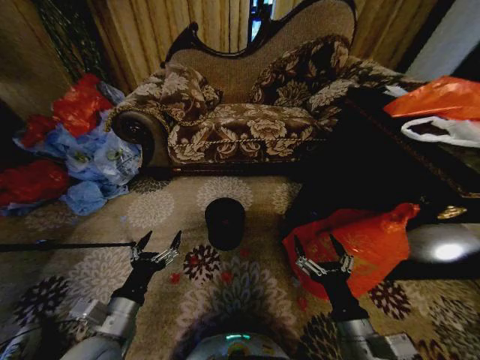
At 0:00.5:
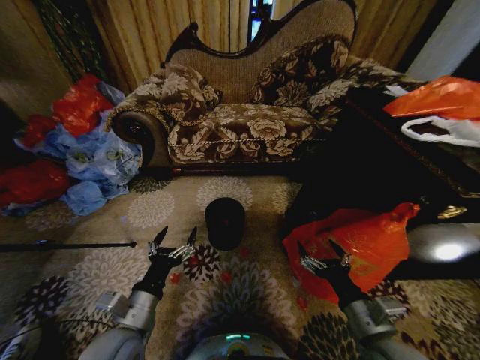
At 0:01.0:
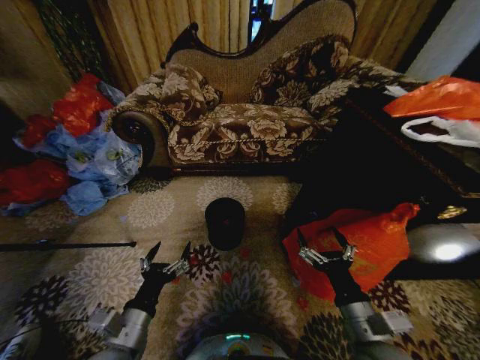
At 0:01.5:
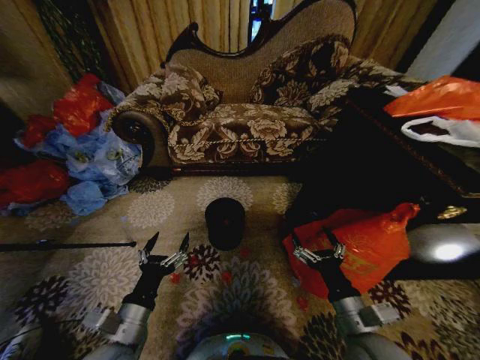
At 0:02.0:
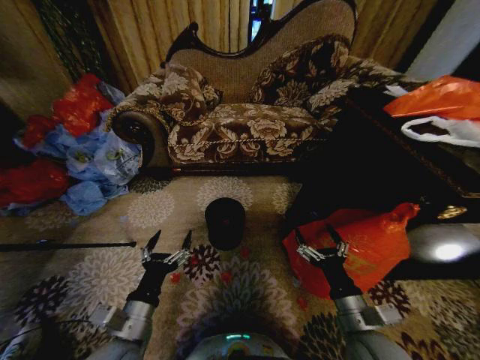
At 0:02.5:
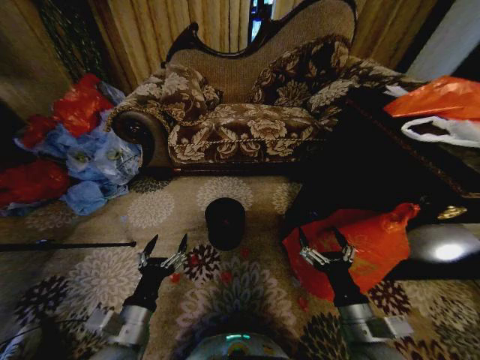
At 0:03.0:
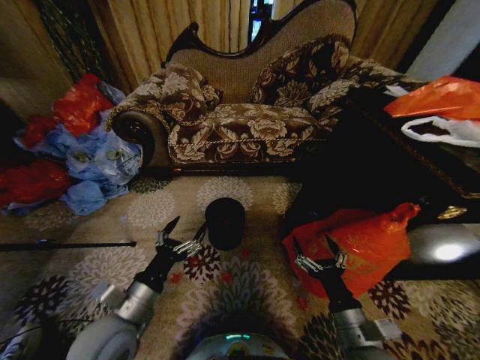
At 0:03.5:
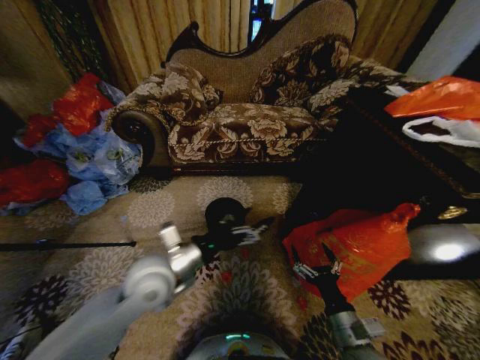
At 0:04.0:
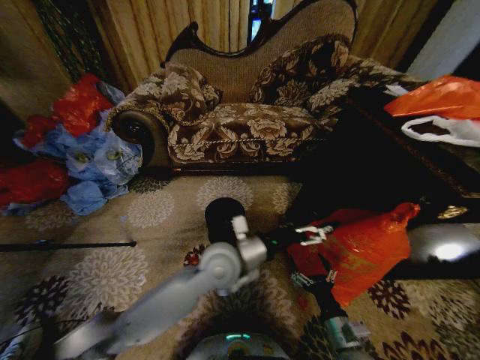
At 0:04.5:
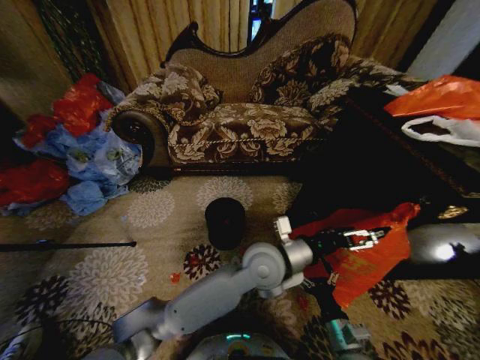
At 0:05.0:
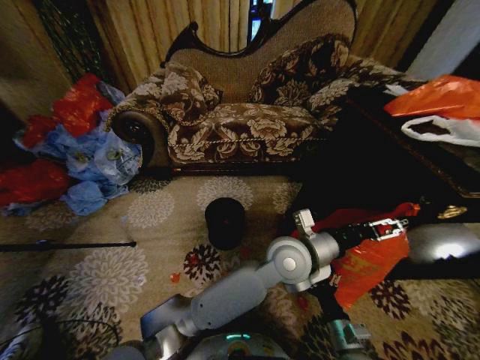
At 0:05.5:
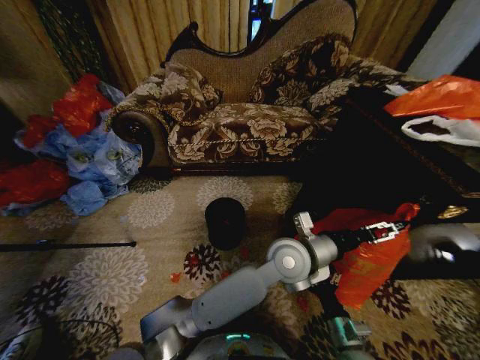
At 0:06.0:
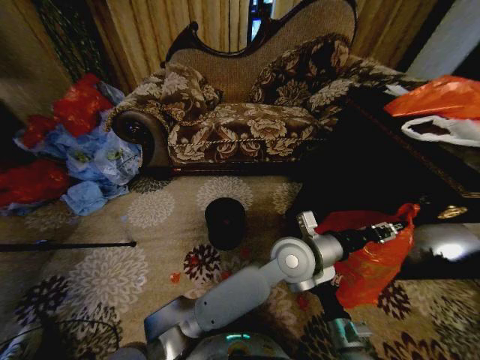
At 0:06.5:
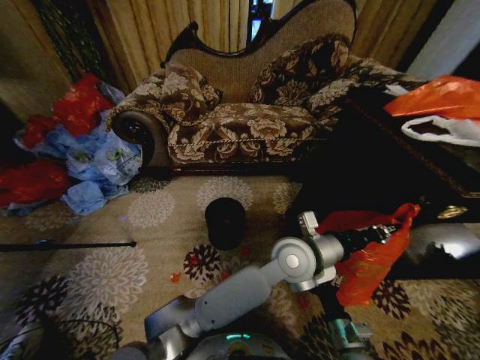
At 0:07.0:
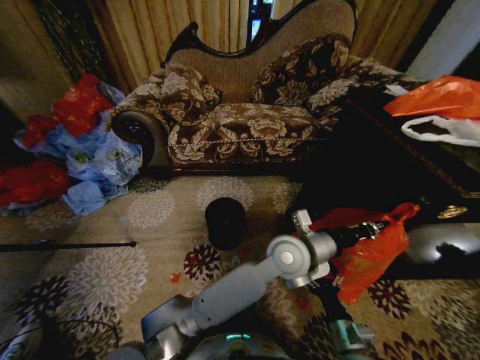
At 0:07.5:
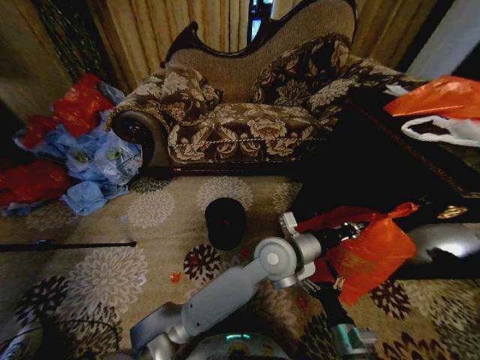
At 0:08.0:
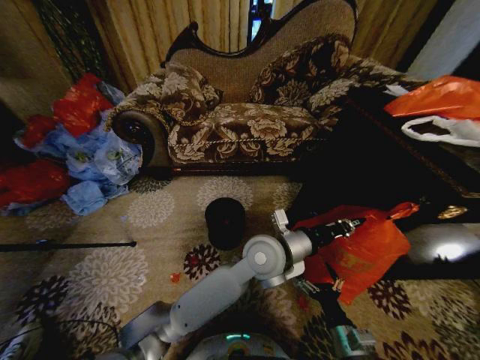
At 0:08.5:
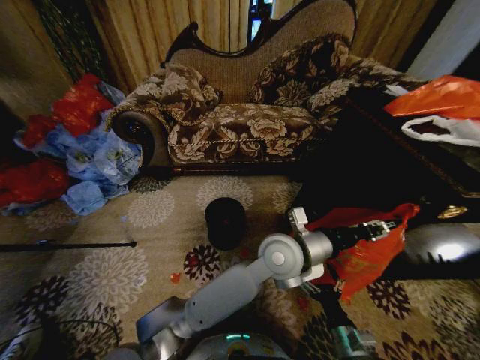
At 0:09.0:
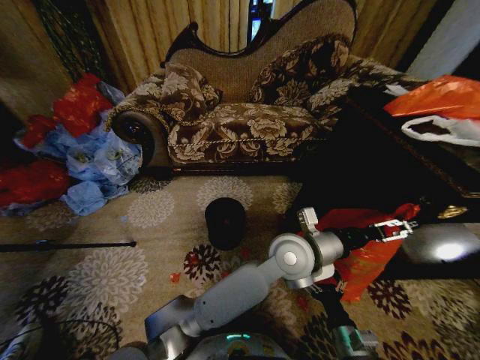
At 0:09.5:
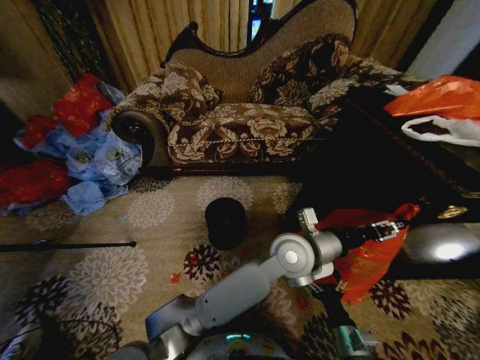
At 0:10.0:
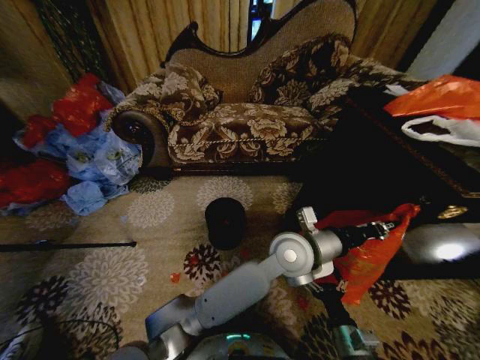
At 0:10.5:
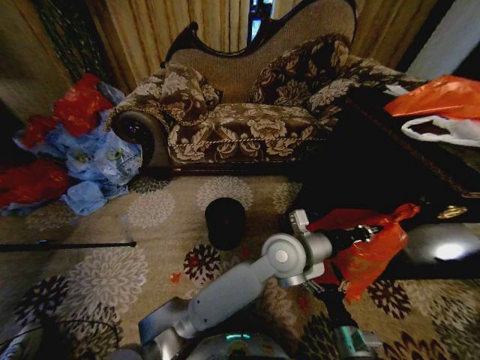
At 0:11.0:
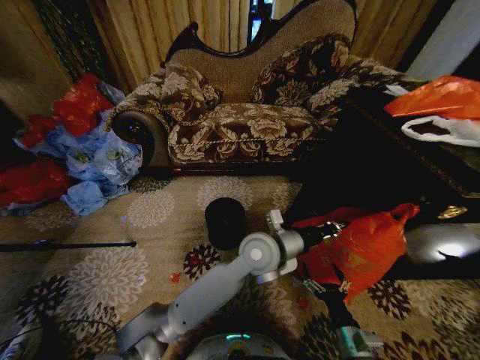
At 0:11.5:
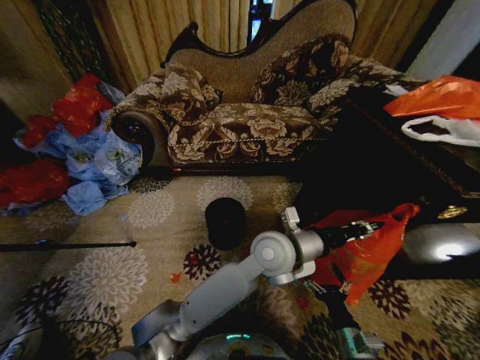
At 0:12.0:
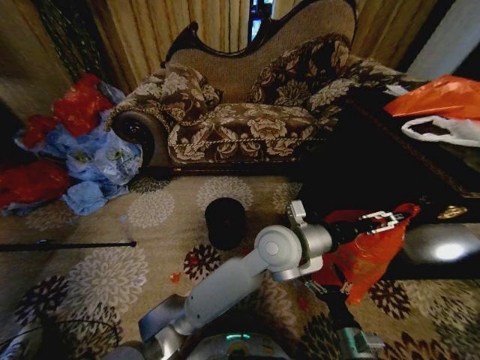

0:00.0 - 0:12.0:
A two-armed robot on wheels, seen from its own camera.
Task of the whole recording: Place a garbage bag over the trash bin.
0:02.0 - 0:04.0: The left gripper moves to the right and forward, some 25 cm, while the right gripper shifts approximately 10 cm downward.
0:04.0 - 0:06.0: The left gripper heads to the right, covering approximately 15 cm, and closes its fingers.
0:06.0 - 0:08.0: The left gripper moves to the left, about 5 cm.
0:08.0 - 0:10.0: The left gripper is displaced to the right by approximately 5 cm, and opens, then closes once more.
0:10.0 - 0:12.0: The left gripper opens.

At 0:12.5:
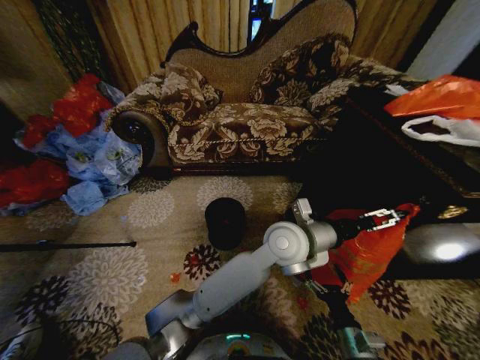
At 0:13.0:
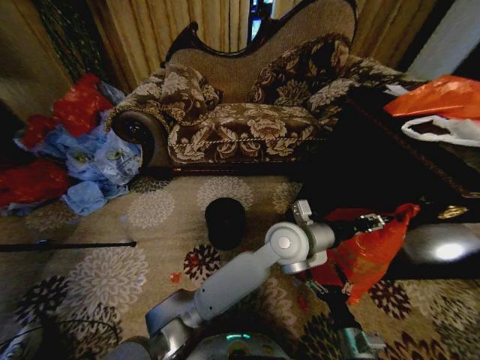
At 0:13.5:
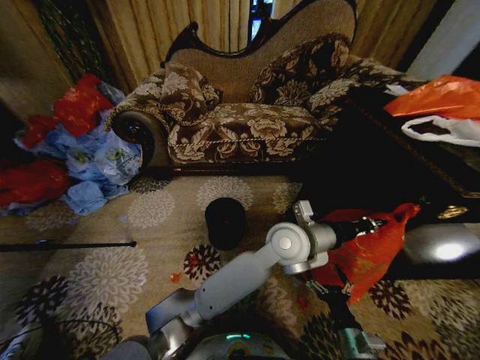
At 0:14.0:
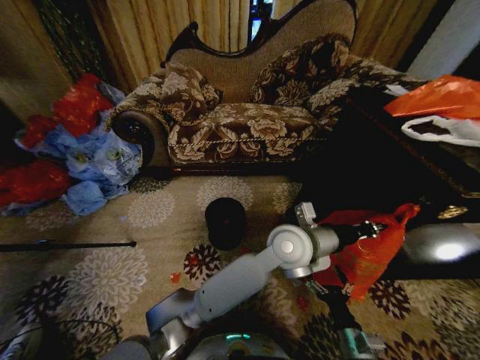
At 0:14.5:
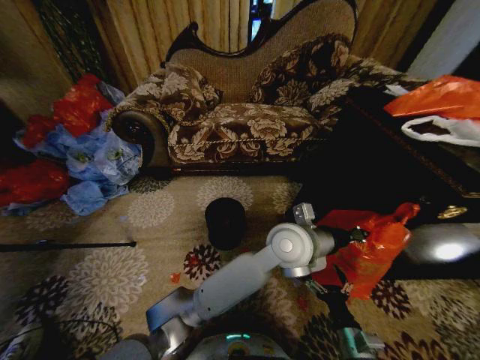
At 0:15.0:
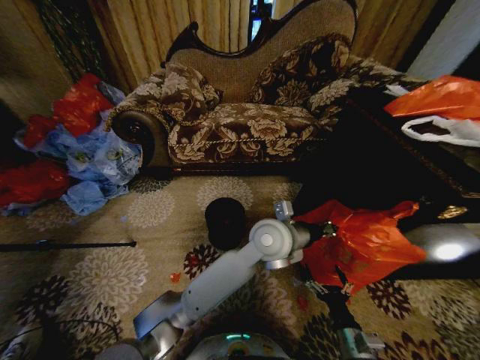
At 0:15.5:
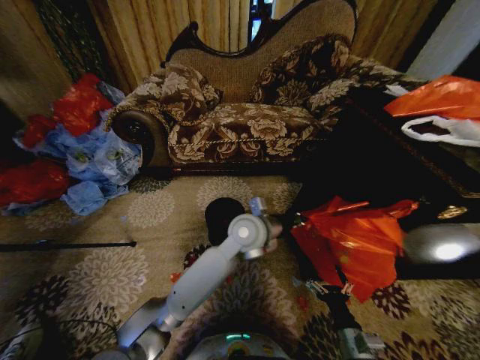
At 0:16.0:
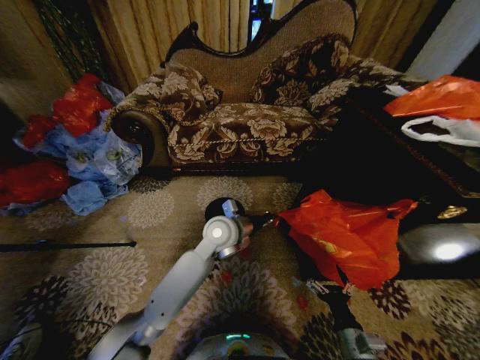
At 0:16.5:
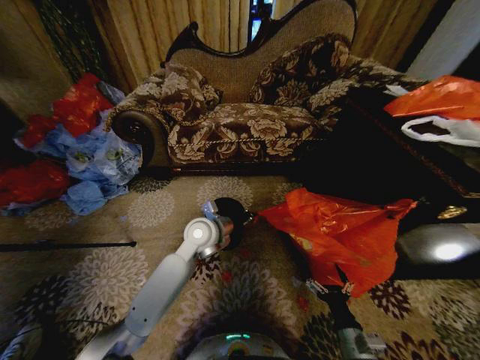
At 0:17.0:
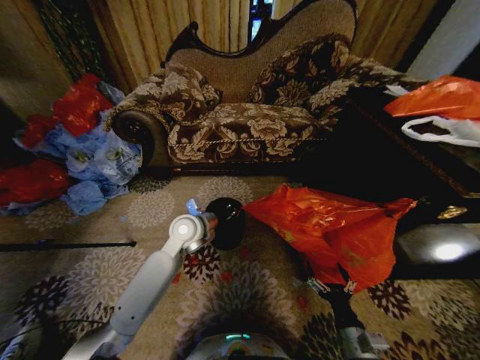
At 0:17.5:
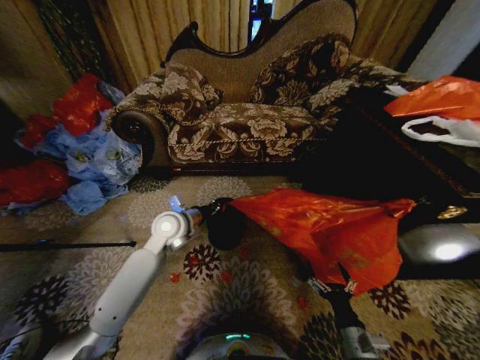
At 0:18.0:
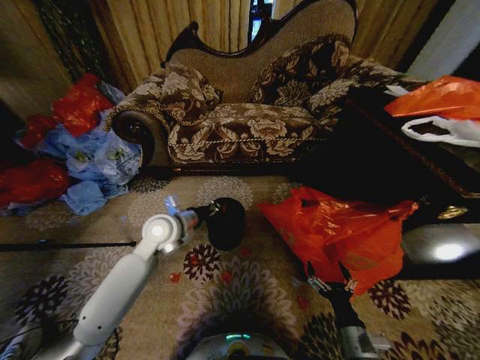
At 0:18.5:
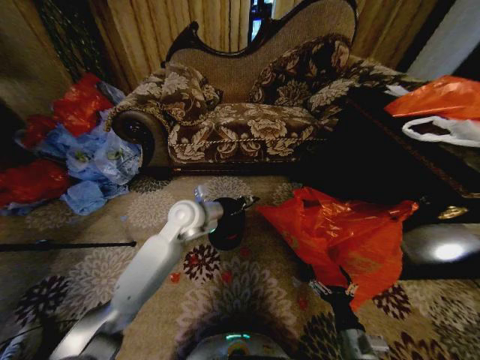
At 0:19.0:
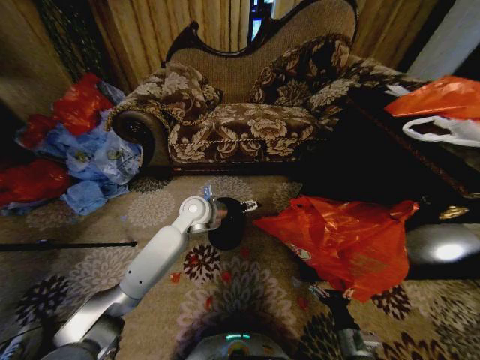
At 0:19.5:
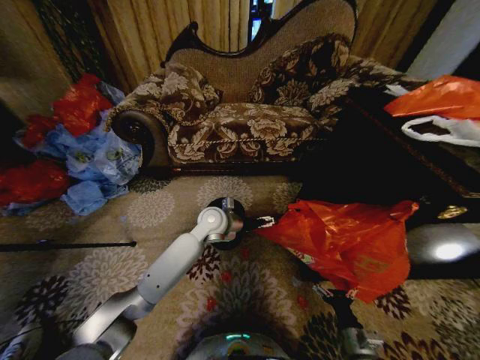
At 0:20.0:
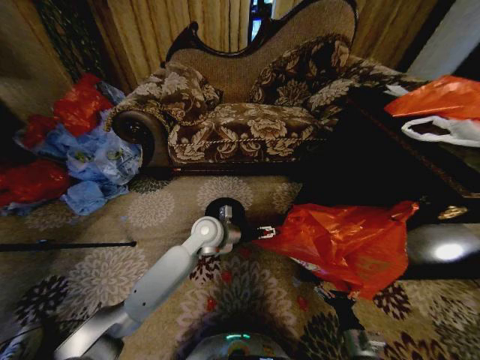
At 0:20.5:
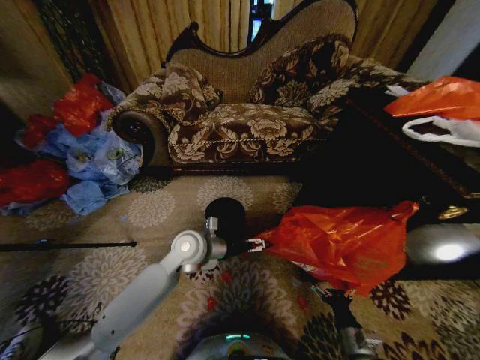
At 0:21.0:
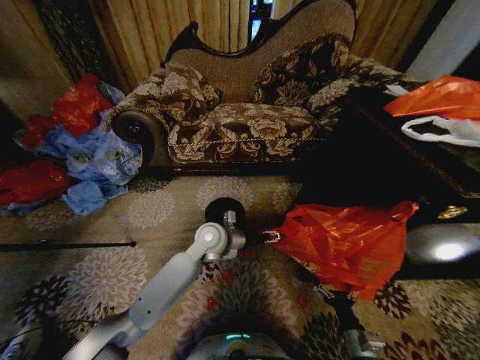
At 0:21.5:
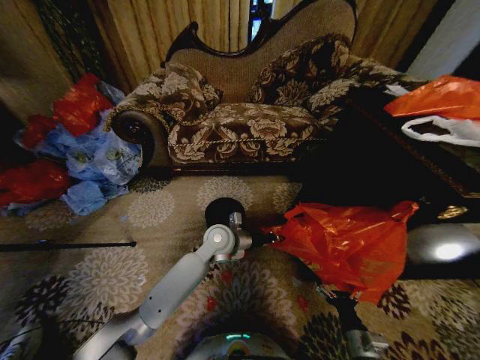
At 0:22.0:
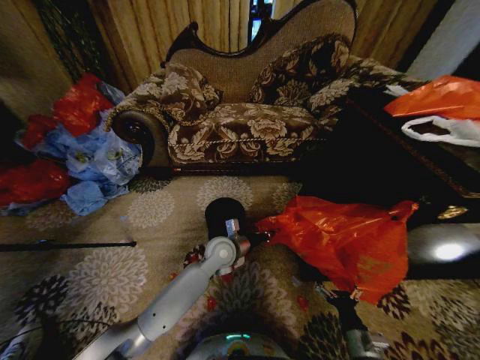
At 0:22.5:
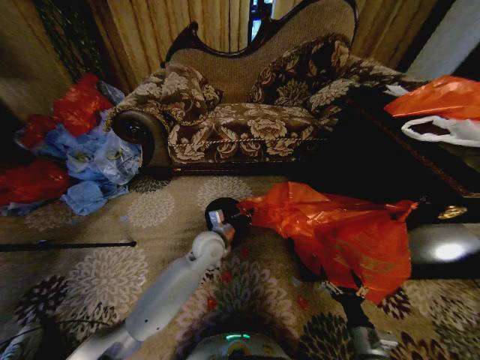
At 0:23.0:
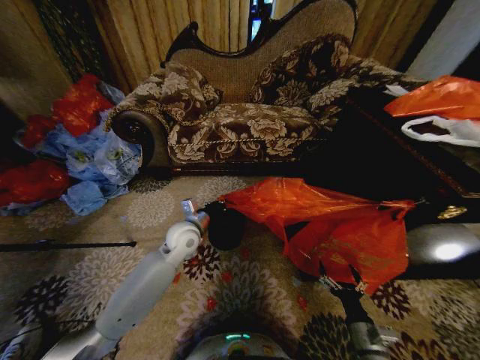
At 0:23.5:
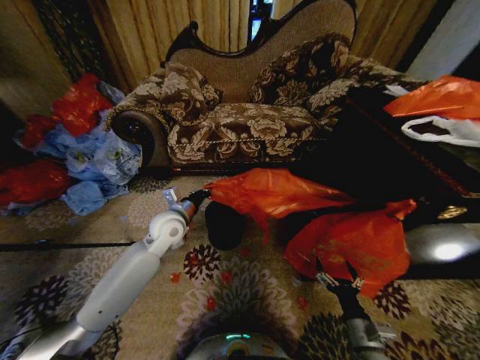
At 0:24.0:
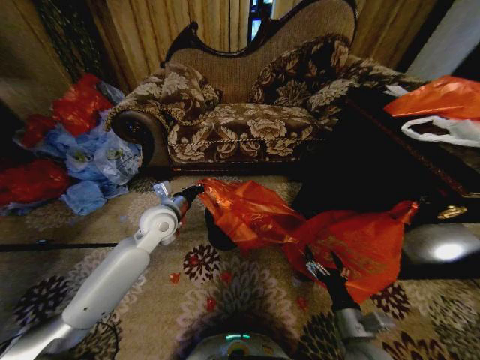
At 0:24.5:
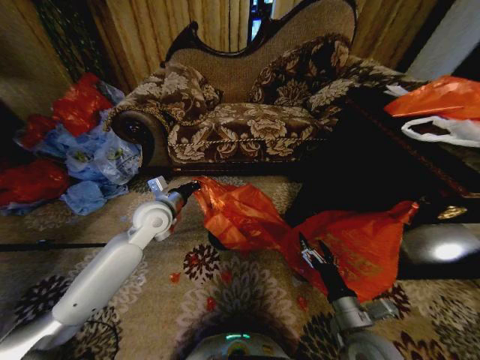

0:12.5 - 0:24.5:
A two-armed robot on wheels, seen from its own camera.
Task of the whole recording: Place a garbage bag over the trash bin.
0:12.5 - 0:14.5: The left gripper closes.
0:14.5 - 0:16.5: The left gripper is displaced to the left by about 20 cm.
0:16.5 - 0:18.5: The left gripper opens its fingers.
0:18.5 - 0:20.5: The left gripper is displaced downward and backward by about 10 cm, and opens up.
0:20.5 - 0:22.5: The left gripper closes.
0:22.5 - 0:24.5: The left gripper is displaced to the left and upward by roughly 15 cm. The right gripper travels upward and to the left by approximately 10 cm.

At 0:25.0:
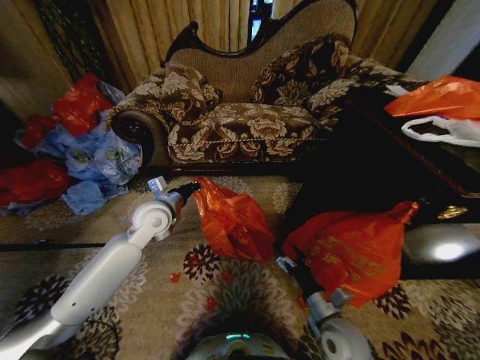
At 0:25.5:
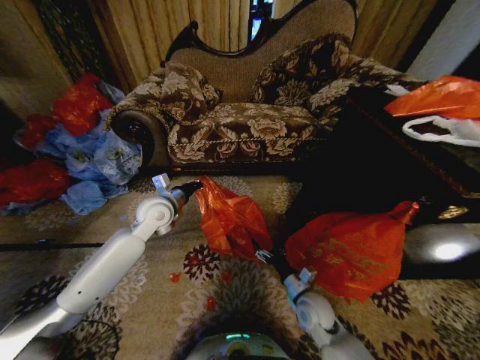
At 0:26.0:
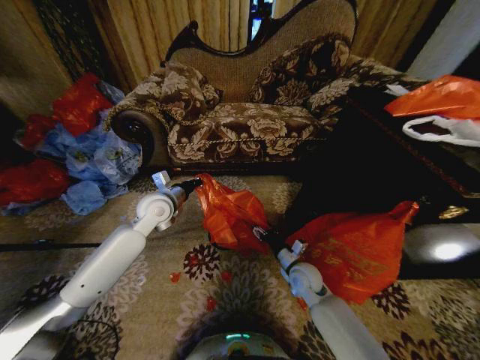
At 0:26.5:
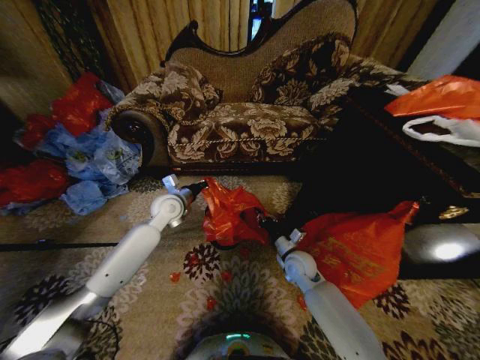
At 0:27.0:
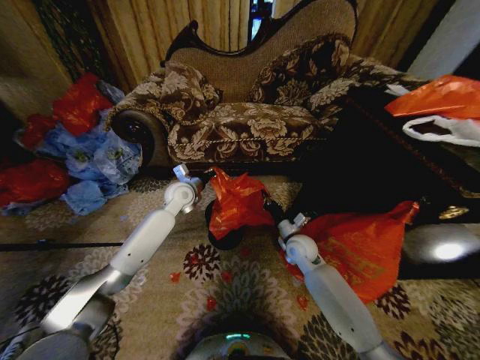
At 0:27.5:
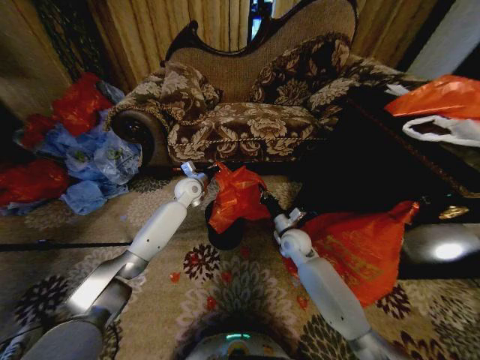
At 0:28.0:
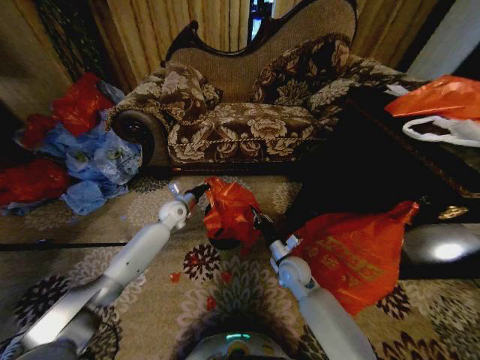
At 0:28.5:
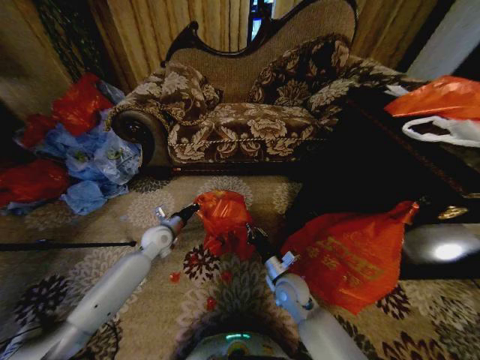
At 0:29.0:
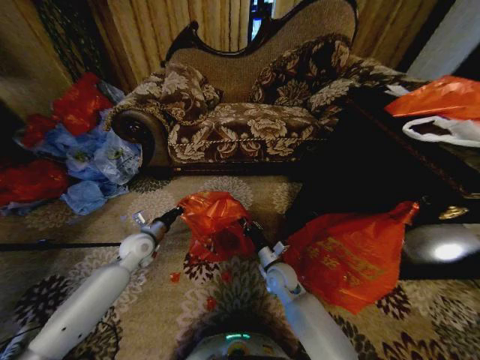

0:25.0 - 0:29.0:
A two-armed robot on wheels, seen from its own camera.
Task of the whole recording: Place a garbage bag over the trash bin.
0:25.0 - 0:27.0: The right gripper heads forward, covering some 20 cm, and closes; the left gripper shifts about 10 cm forward.
0:27.0 - 0:29.0: The left gripper moves backward, to the left and downward, some 20 cm, while the right gripper shifts some 10 cm downward, to the left and backward.
